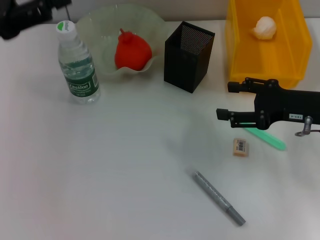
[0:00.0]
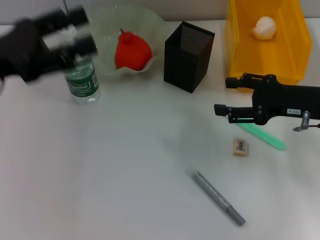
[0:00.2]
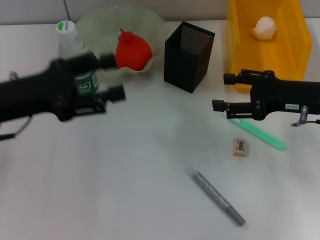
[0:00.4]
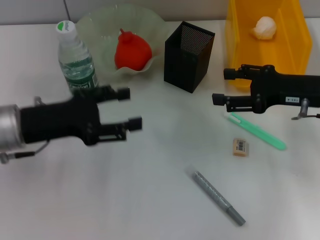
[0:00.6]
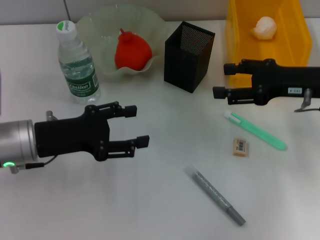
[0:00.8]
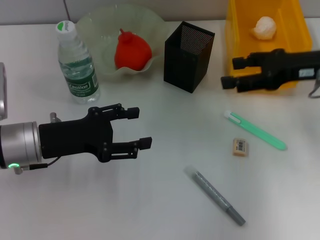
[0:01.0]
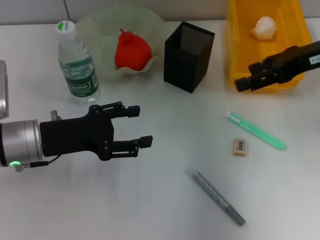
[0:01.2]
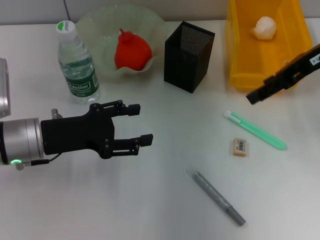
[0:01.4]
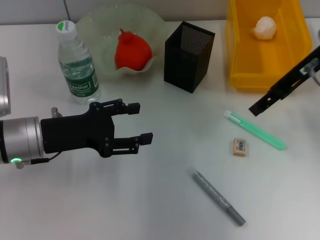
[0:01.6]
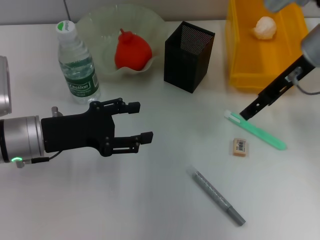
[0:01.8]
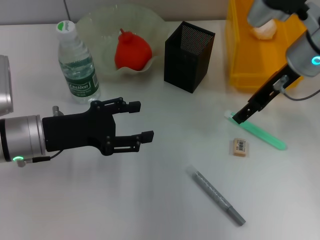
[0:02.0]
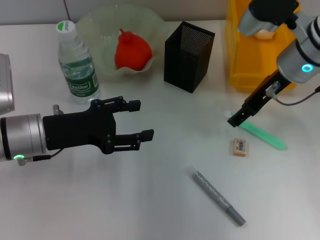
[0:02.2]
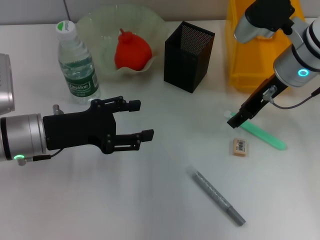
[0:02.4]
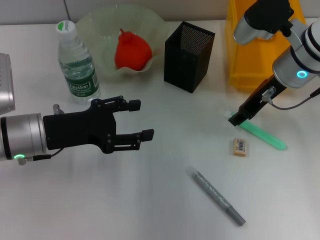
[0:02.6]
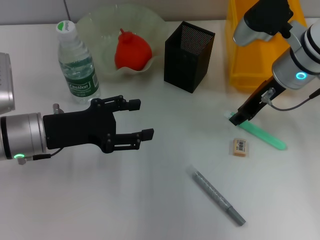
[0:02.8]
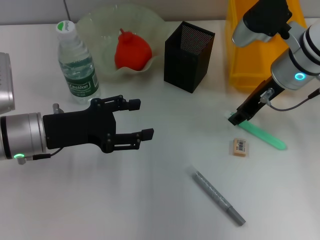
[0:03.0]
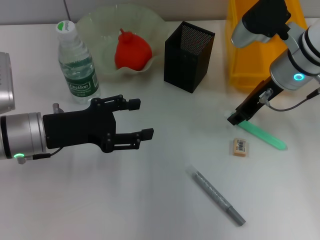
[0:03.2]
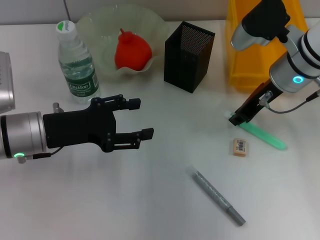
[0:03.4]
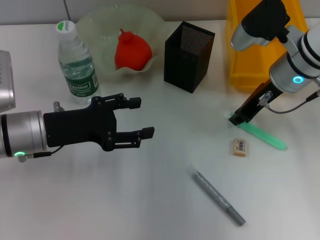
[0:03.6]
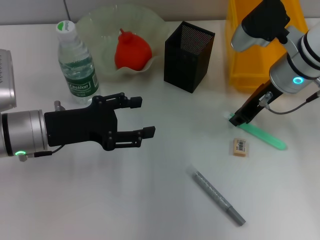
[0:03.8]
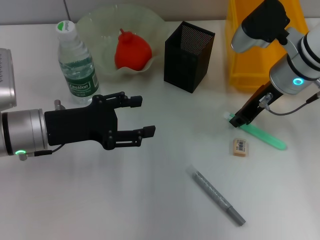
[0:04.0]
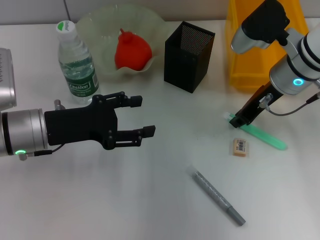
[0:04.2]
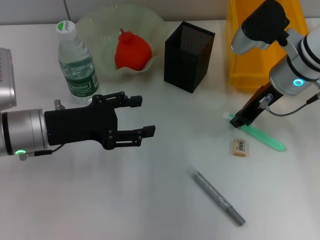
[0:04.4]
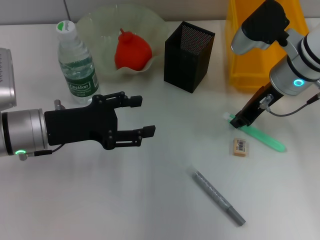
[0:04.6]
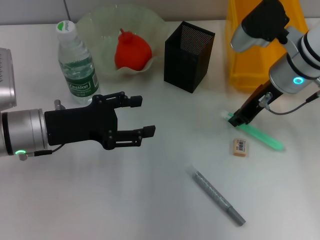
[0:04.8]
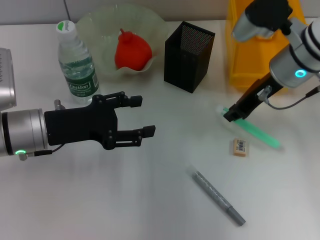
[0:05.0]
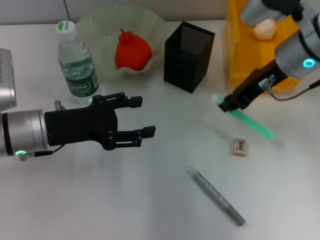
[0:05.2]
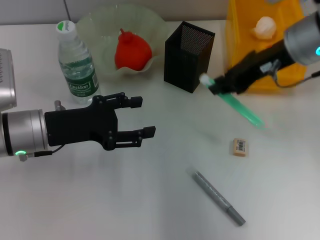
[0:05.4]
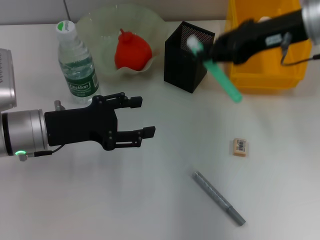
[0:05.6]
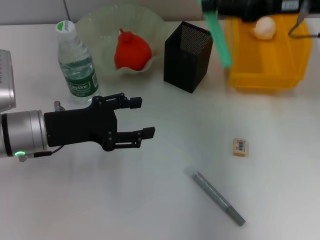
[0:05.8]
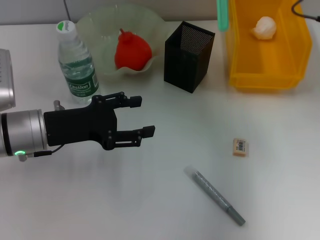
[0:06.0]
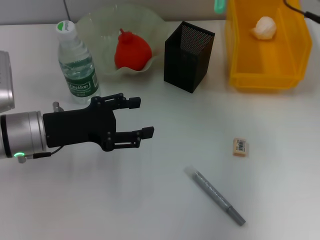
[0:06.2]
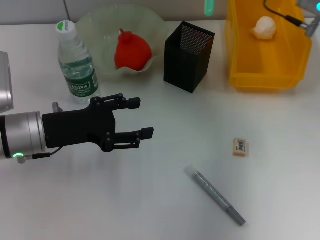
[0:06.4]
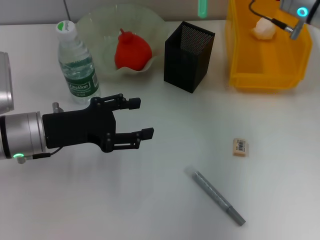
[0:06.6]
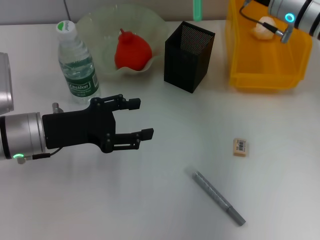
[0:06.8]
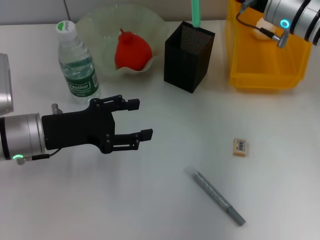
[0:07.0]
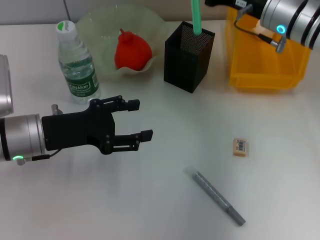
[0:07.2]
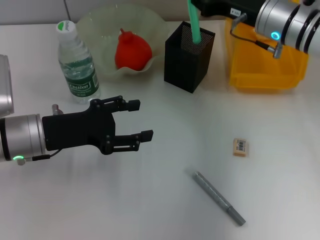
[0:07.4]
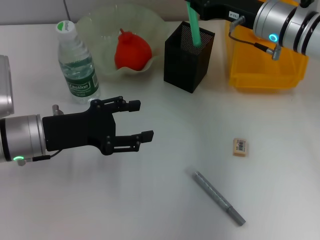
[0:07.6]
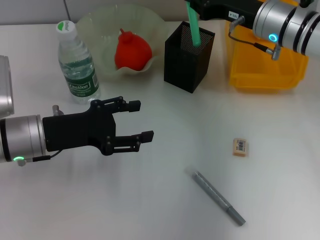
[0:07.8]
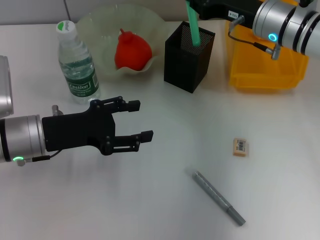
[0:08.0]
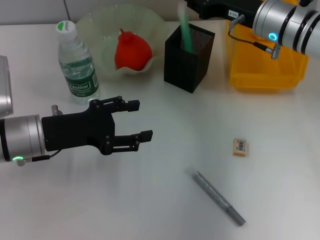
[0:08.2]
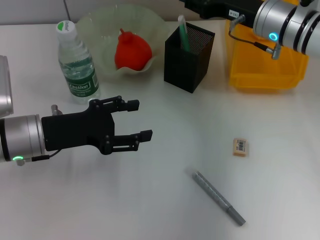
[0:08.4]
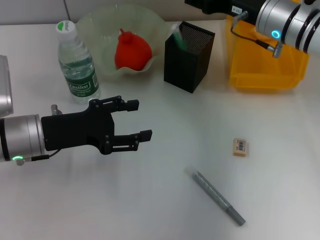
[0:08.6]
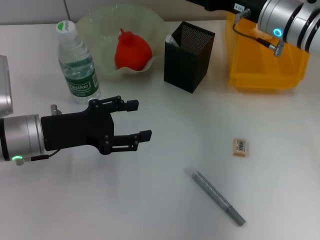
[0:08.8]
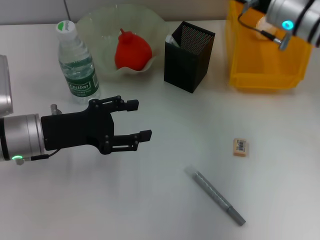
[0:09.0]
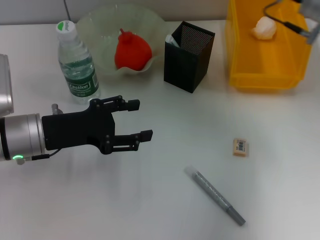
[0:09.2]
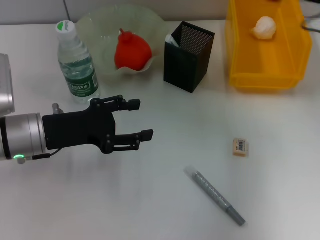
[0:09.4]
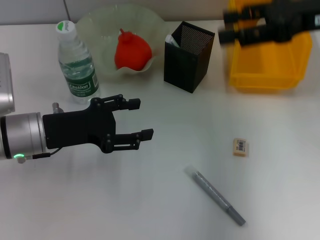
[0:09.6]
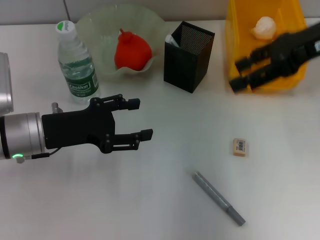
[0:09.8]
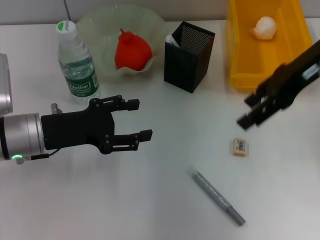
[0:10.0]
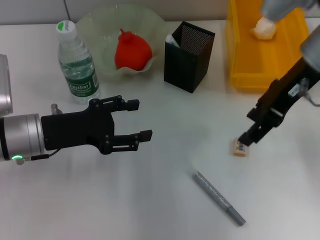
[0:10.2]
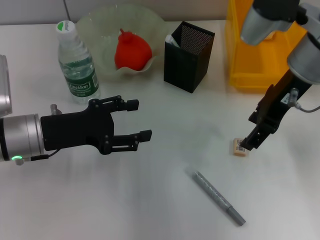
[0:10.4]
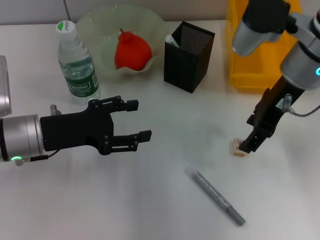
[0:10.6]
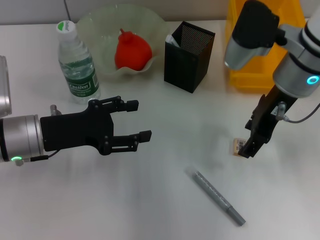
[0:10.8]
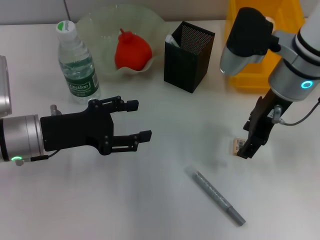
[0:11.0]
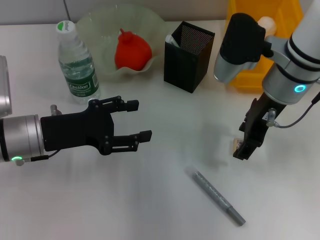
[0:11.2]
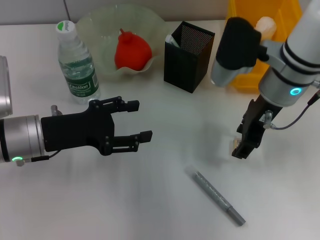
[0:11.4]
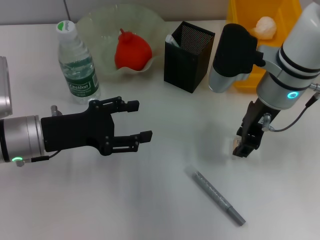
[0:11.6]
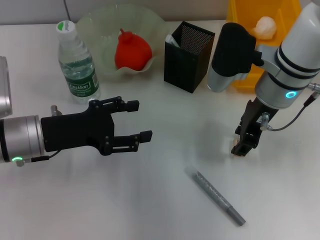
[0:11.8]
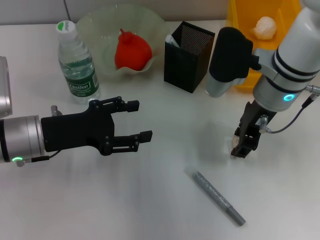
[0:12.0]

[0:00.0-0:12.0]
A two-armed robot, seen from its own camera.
Step, 0:00.0 to 0:04.4: Grab the blue utility knife with the right hand.
Step, 0:04.6 to 0:08.6: Place the blue utility knife into the pen holder with the right hand.
0:00.0 to 0:01.6: The right gripper travels upward and forward by some 15 cm, while the left gripper shifts some 15 cm downward and to the right.
0:01.6 to 0:03.0: The right gripper goes roughly 5 cm downward, and closes up.
0:03.0 to 0:04.4: The two grippers keep their place.
0:04.4 to 0:06.0: The right gripper is displaced upward and to the right by about 10 cm.
0:06.0 to 0:07.6: The right gripper is displaced downward and to the left by some 10 cm.
0:07.6 to 0:09.0: The right gripper opens.
0:09.0 to 0:10.4: The right gripper is displaced backward by approximately 5 cm.
0:10.4 to 0:12.0: The right gripper travels downward by some 5 cm.

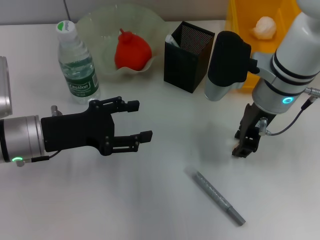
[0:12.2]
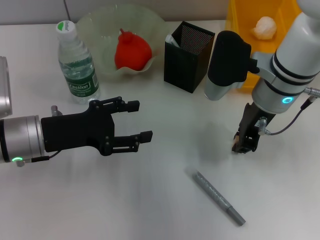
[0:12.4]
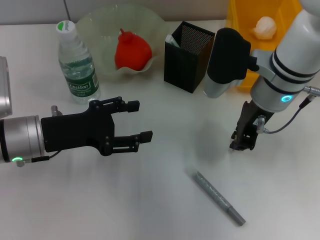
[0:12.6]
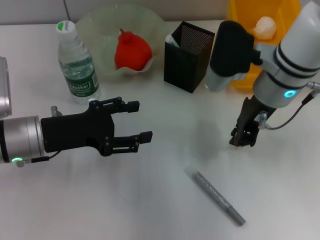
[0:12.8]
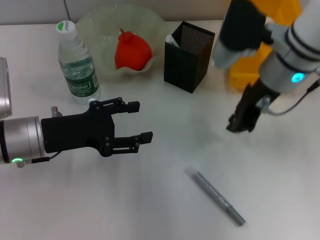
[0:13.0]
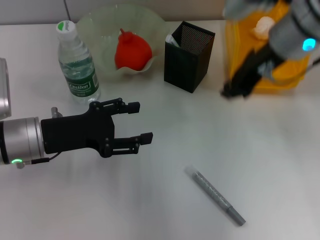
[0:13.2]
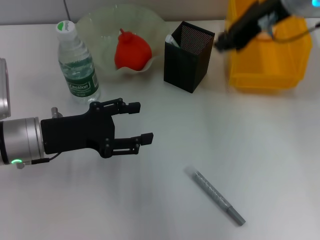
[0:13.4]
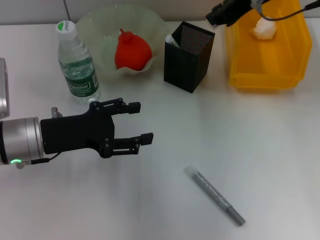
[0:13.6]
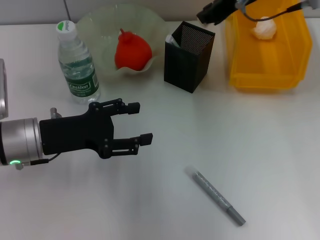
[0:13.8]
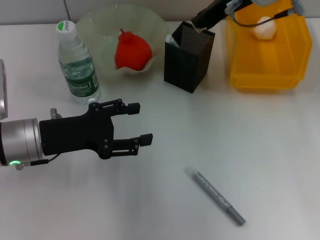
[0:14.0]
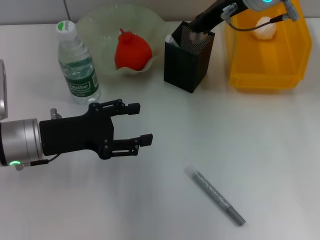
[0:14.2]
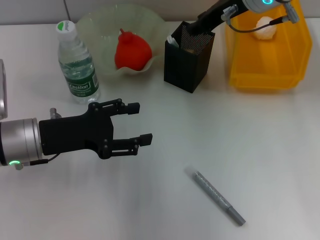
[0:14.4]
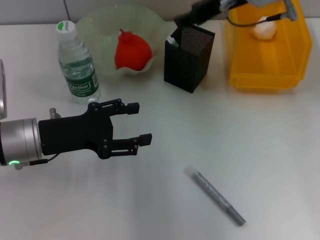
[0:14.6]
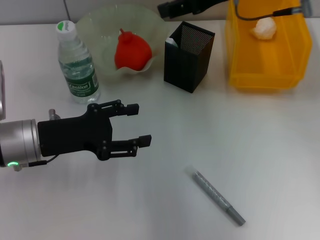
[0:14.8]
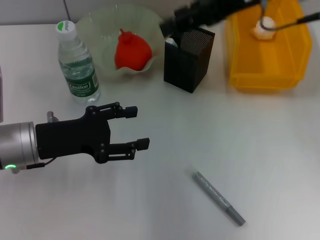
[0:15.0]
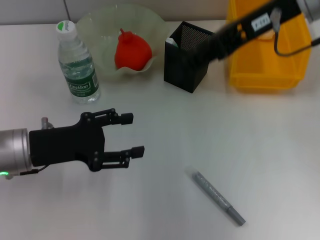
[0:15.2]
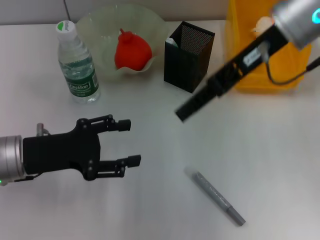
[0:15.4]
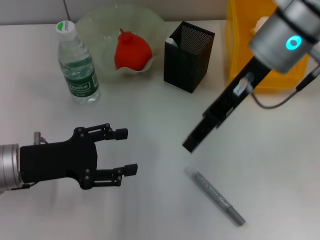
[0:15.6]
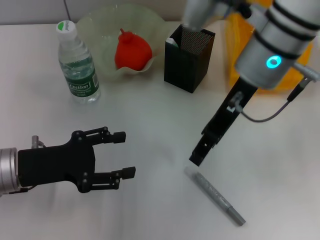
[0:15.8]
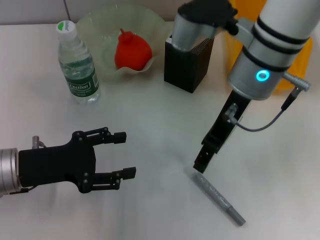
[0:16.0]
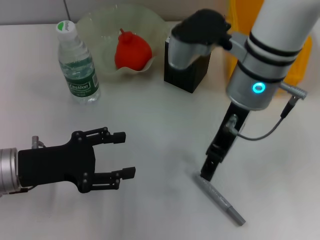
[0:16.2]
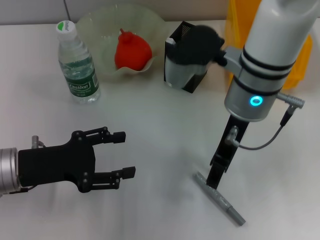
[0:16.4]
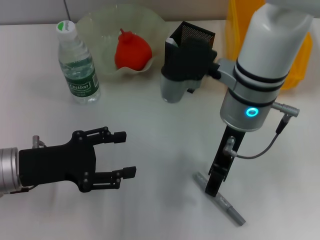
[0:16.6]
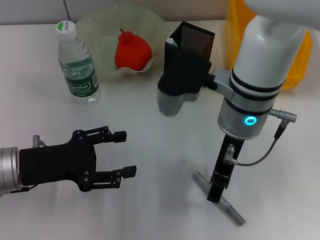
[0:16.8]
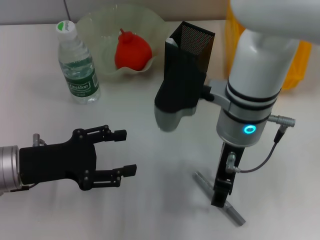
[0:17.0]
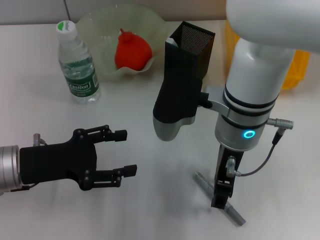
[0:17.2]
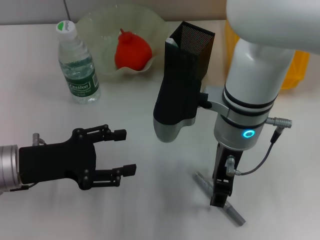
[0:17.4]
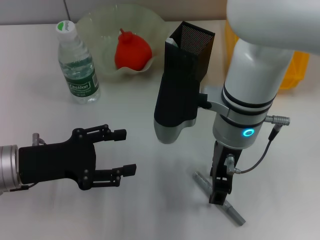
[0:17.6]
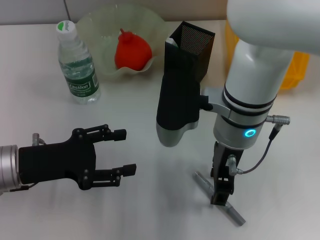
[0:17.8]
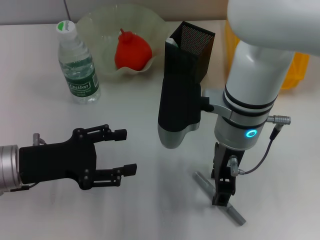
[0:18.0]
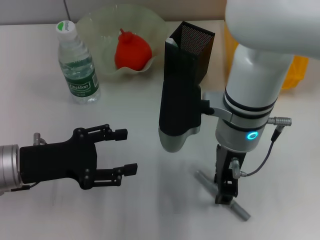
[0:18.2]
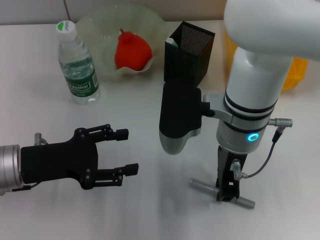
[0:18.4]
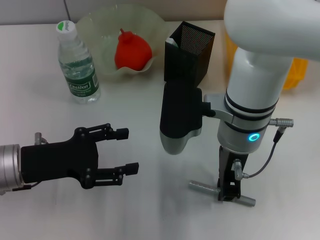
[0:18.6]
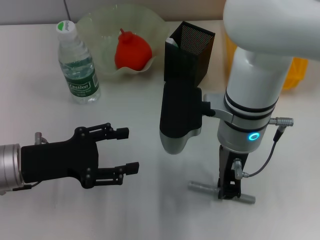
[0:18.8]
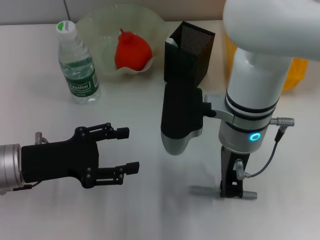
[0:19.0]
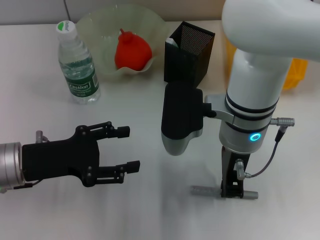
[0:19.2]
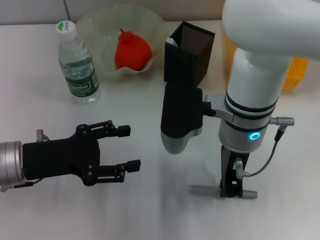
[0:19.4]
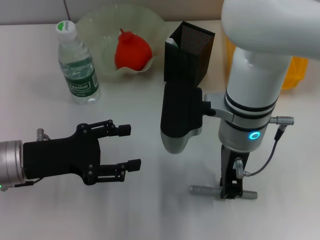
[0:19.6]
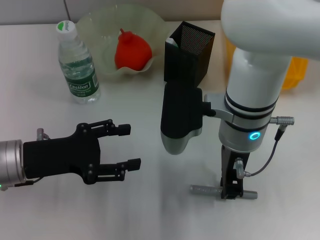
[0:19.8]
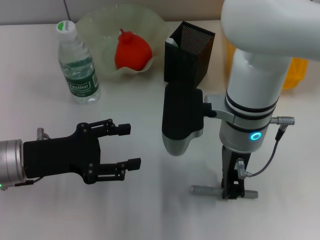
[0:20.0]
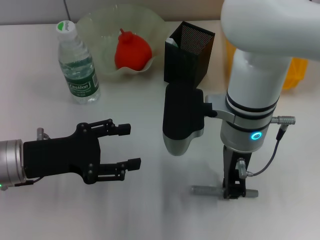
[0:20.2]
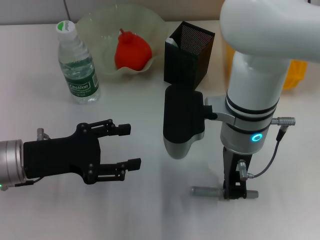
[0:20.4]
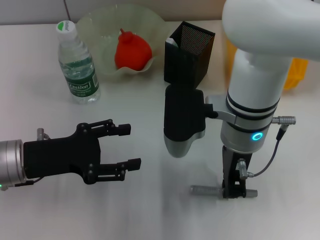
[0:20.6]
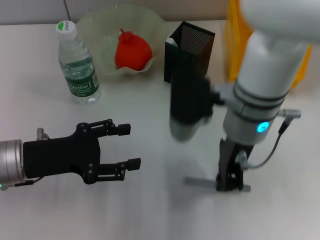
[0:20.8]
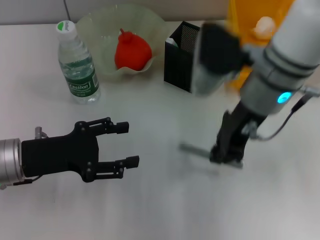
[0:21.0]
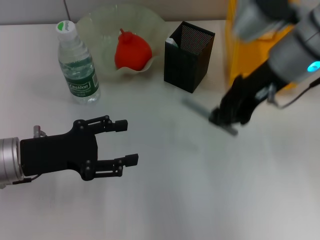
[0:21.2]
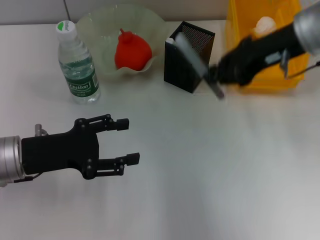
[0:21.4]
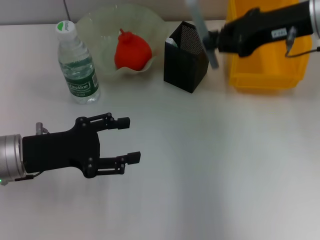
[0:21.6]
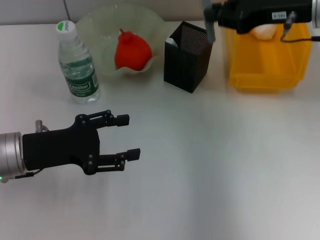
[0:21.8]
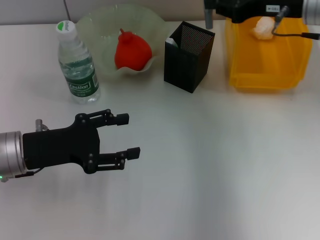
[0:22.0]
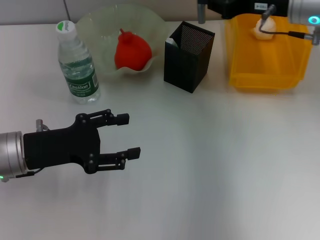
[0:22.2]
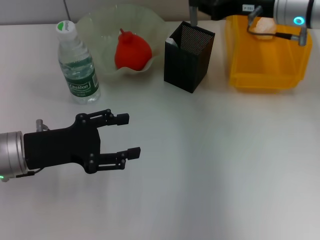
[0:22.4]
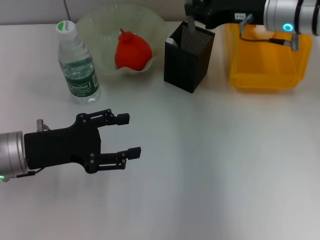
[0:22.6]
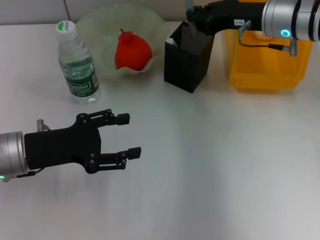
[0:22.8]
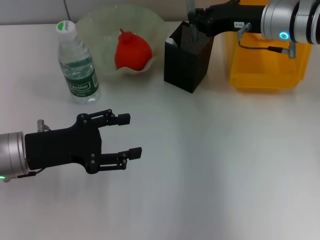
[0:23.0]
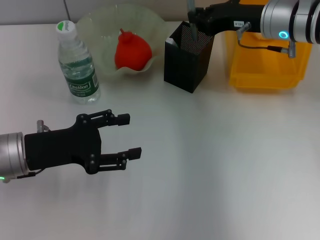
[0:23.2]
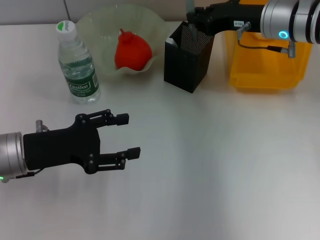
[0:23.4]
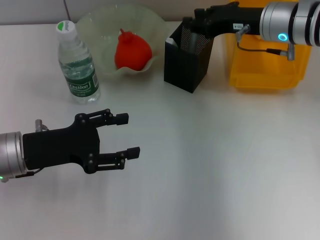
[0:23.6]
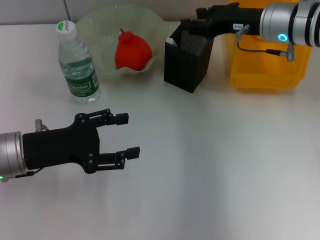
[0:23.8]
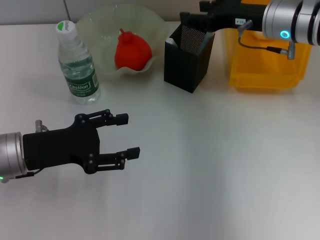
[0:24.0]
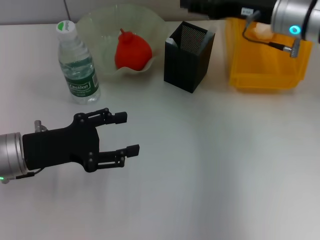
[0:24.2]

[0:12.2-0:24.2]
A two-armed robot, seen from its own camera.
Step, 0:12.8 to 0:14.2: Put the eraser into the pen holder with the right hand.
Step, 0:14.6 to 0:20.4: Grab the gray glue with the right hand.
Step, 0:20.6 to 0:24.0: Place the gray glue into the pen holder with the right hand.
0:12.2 to 0:13.8: The right gripper is displaced upward and forward by some 15 cm, and closes up.
0:13.8 to 0:15.2: The right gripper heads backward, covering approximately 5 cm, and opens its fingers.
0:15.2 to 0:16.6: The right gripper shifts about 15 cm downward and to the left.
0:18.2 to 0:19.8: The right gripper closes up.
0:19.8 to 0:21.2: The right gripper goes approximately 10 cm to the right and upward.
0:21.2 to 0:22.6: The right gripper goes approximately 5 cm forward.
0:22.6 to 0:24.2: The right gripper opens up.
